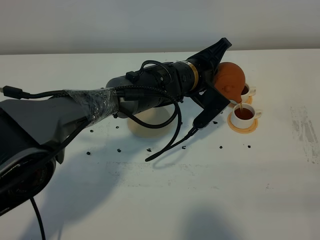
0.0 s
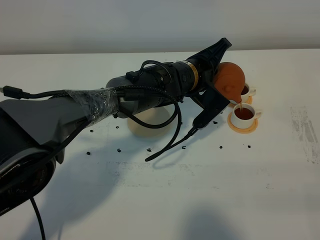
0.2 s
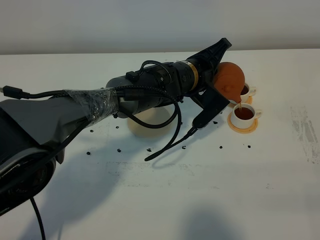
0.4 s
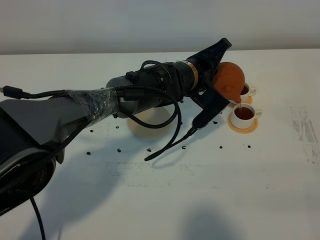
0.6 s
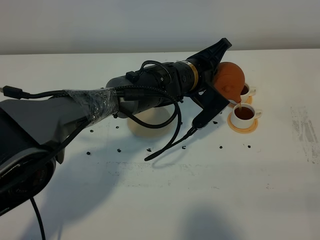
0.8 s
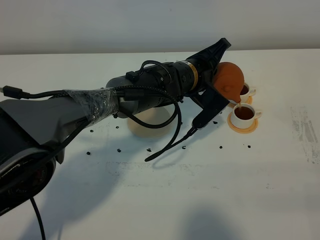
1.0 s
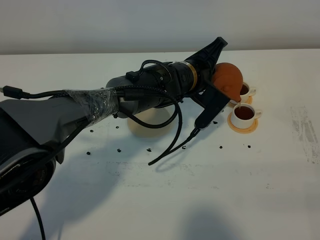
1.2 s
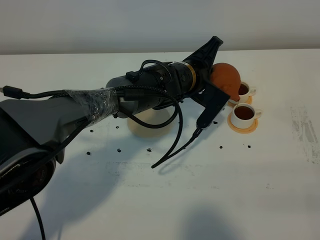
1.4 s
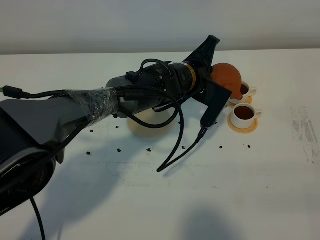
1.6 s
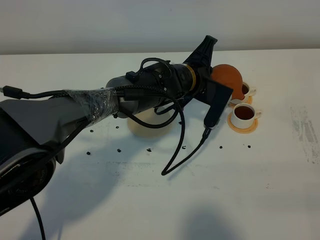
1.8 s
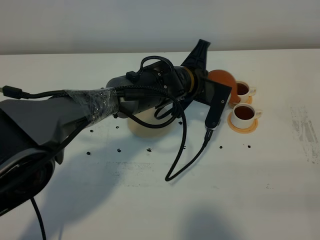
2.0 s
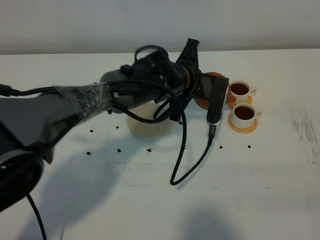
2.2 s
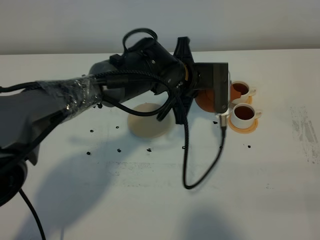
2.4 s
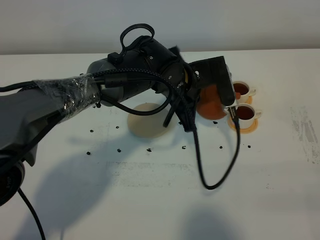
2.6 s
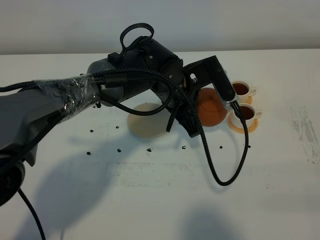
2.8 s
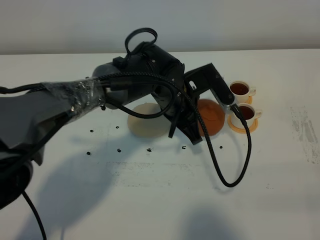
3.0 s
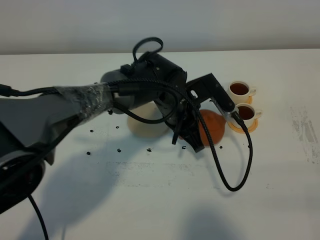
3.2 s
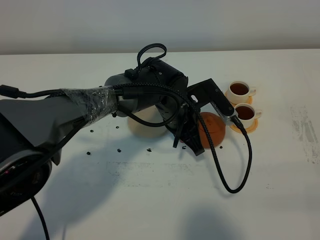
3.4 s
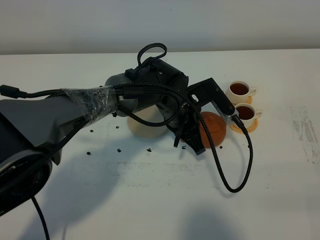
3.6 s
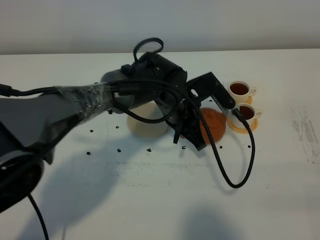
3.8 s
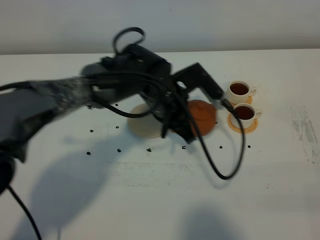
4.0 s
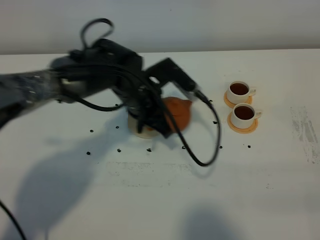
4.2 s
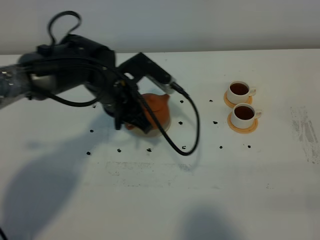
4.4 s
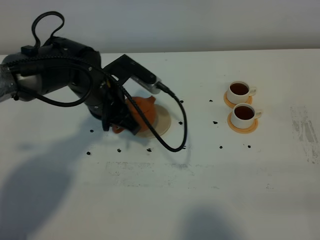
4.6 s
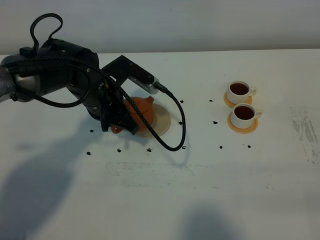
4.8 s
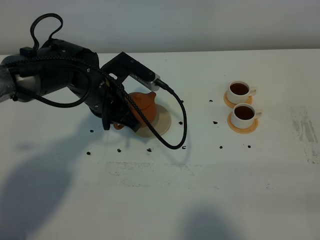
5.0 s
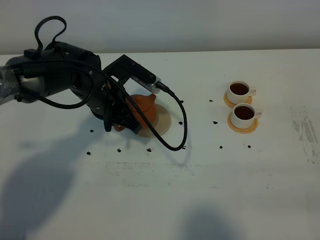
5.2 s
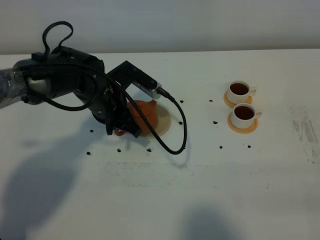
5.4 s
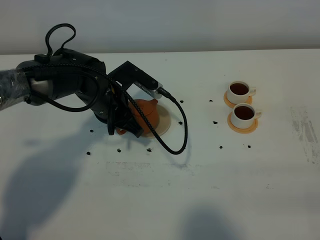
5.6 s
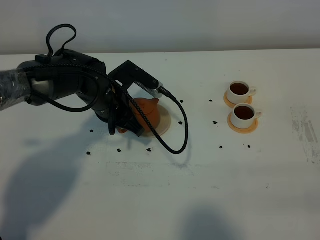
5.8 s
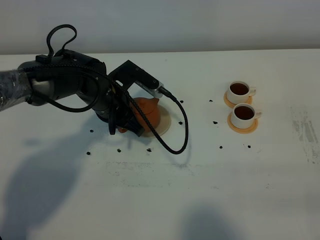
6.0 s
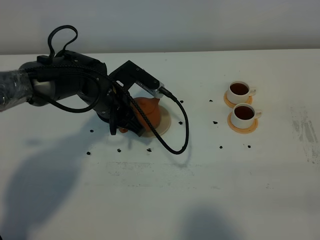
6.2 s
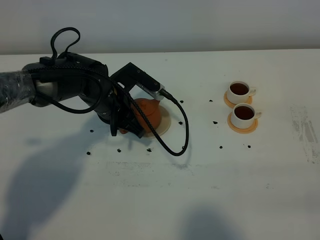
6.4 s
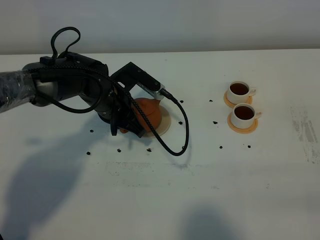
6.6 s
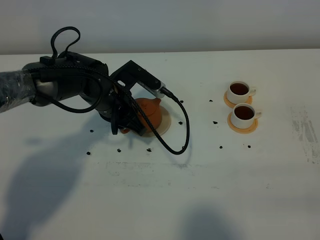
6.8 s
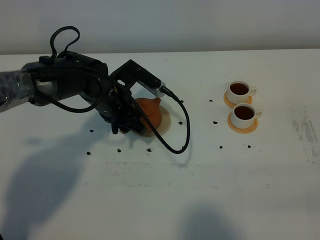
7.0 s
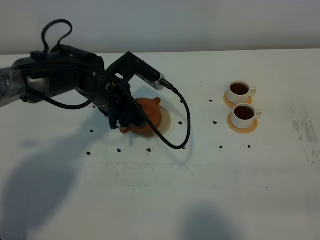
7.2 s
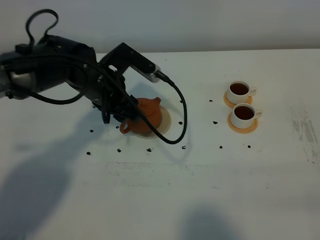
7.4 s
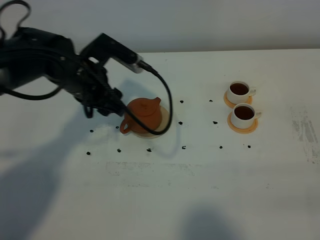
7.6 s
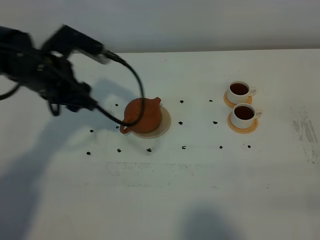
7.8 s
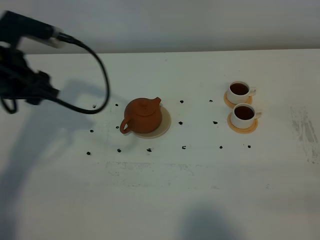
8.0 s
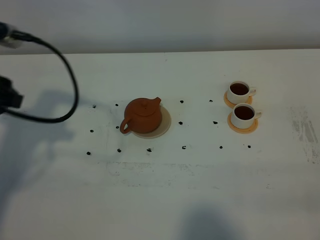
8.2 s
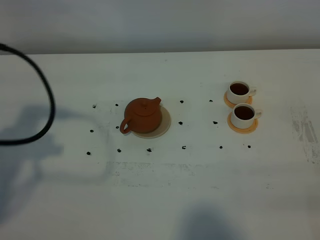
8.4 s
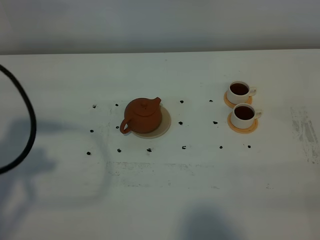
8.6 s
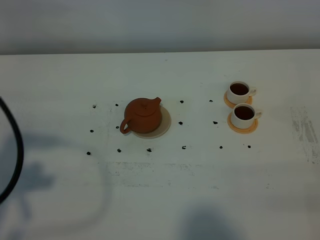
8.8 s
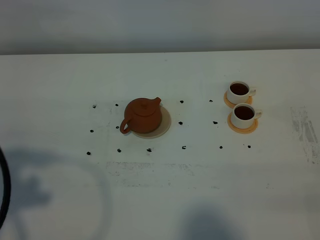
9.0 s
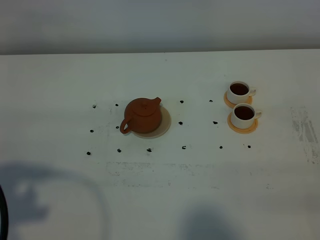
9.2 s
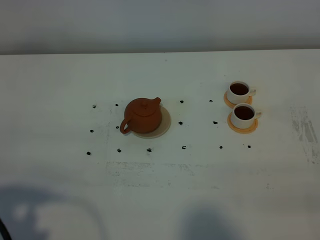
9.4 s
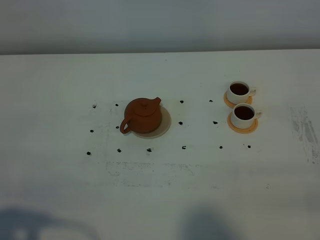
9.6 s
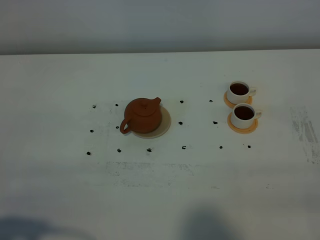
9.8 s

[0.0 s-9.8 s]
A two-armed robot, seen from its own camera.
Task of the whole recording: grasp the brown teapot and pour the tea into the two white teacups one by one, put the brown teapot back in its original place.
Step, 0.0 to 2.0 s: Pour tea into the teacup with the left gripper.
0.0 to 1.4 s: The grippers move only a little.
1.4 to 2.8 s: The left gripper moves approximately 5 cm.
2.8 to 4.2 s: The left gripper shifts approximately 5 cm to the left.
4.2 to 5.6 s: The left gripper shifts some 5 cm to the left.
5.6 to 7.0 s: The left gripper opens up.
7.0 to 8.4 s: The left gripper is displaced to the left, upward and backward by roughly 30 cm.
8.4 to 9.8 s: The left gripper is displaced backward by approximately 20 cm.

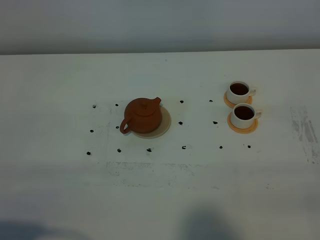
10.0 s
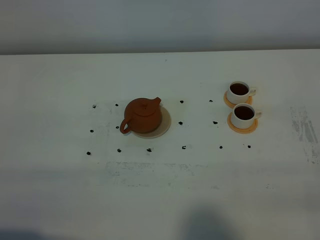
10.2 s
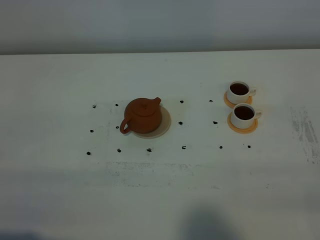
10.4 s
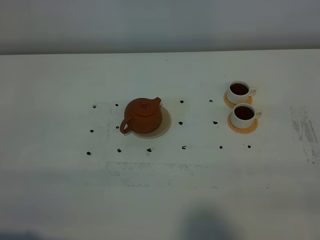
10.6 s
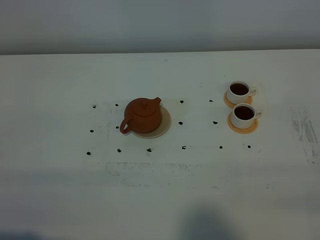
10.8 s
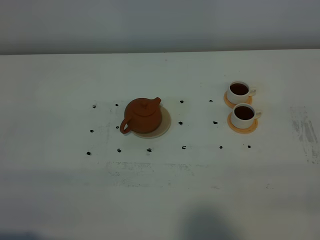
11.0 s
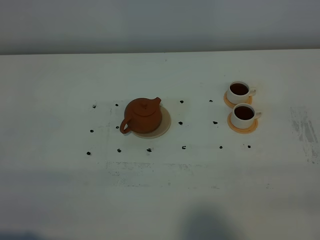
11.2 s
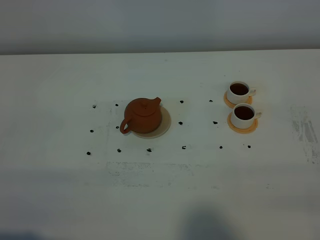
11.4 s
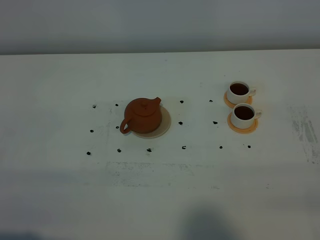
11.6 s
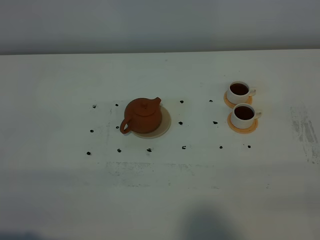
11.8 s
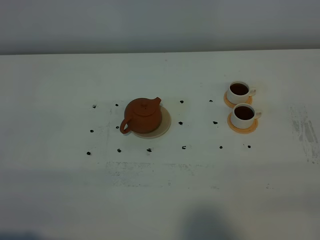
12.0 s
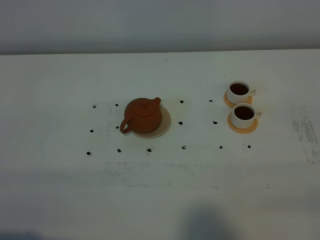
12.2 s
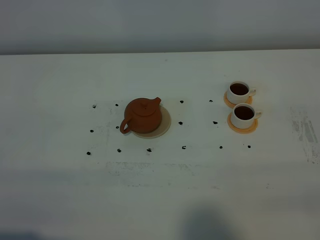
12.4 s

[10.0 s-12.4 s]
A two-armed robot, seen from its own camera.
Task of the whole recording: grasp the brown teapot and pour the tea into the two white teacups one by one, put the brown teapot back in its original place.
11.2 to 12.4 s: Both grippers stay about where they are.

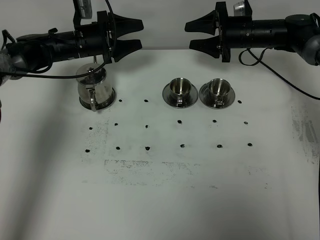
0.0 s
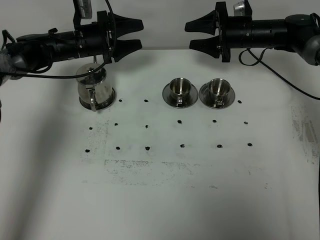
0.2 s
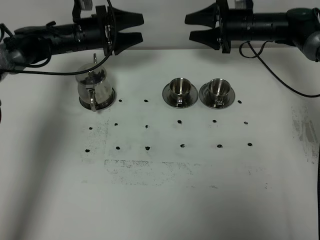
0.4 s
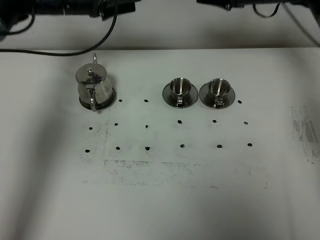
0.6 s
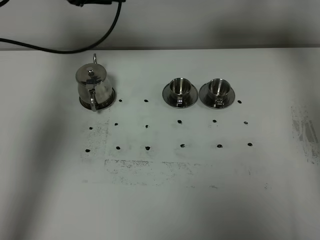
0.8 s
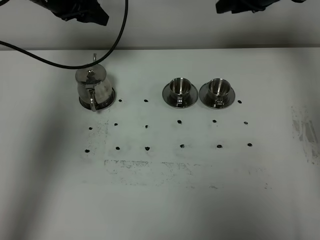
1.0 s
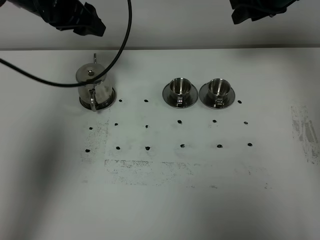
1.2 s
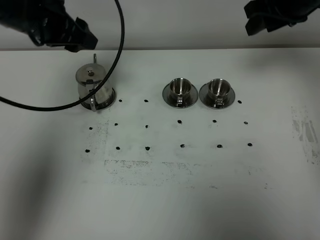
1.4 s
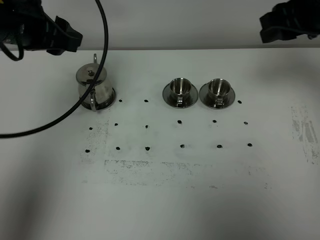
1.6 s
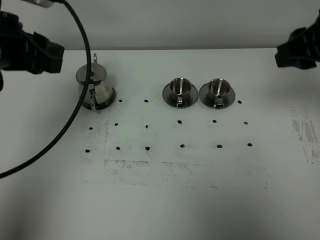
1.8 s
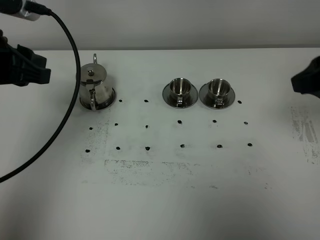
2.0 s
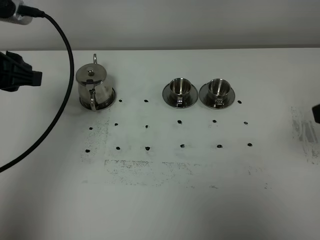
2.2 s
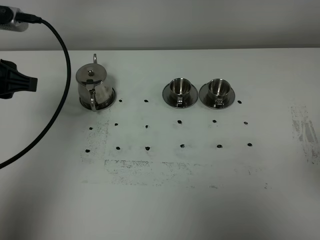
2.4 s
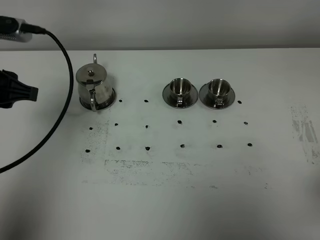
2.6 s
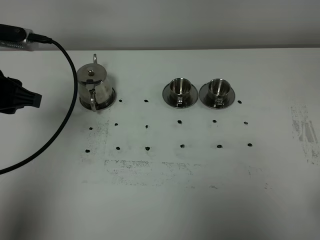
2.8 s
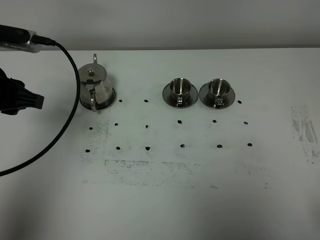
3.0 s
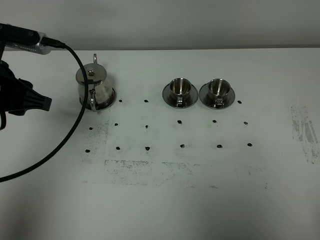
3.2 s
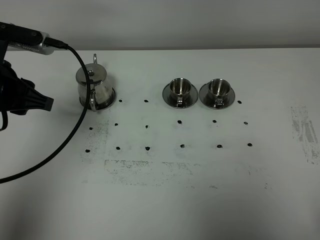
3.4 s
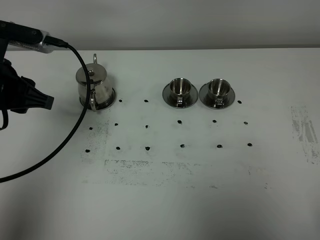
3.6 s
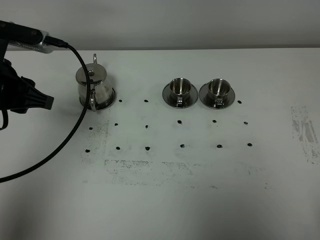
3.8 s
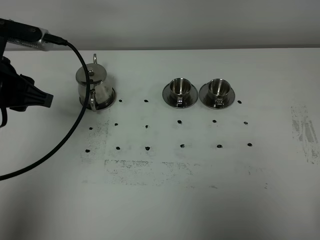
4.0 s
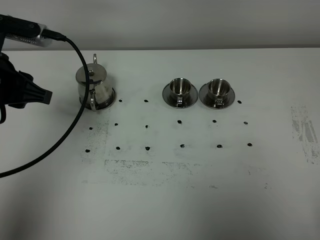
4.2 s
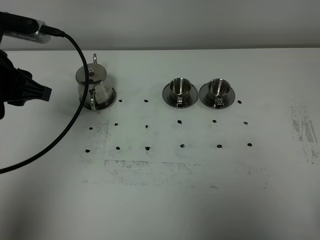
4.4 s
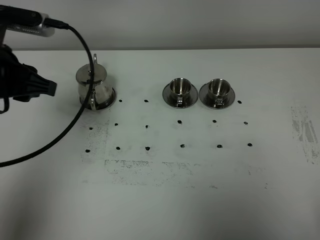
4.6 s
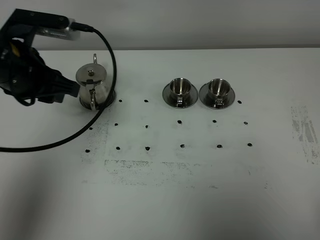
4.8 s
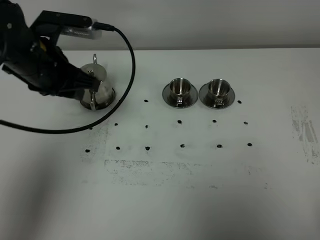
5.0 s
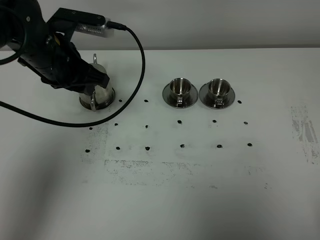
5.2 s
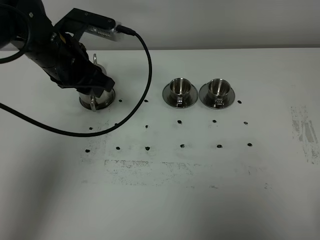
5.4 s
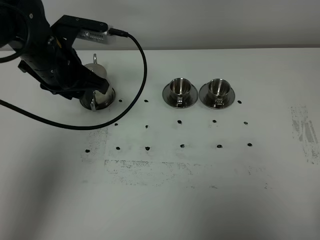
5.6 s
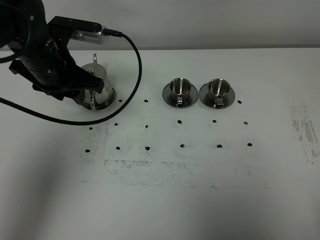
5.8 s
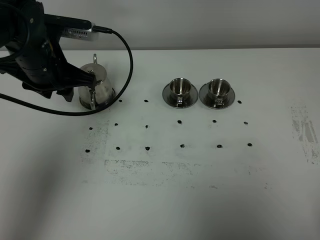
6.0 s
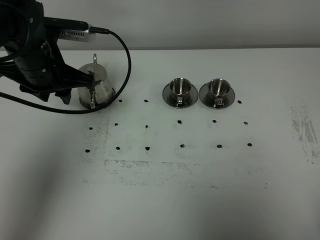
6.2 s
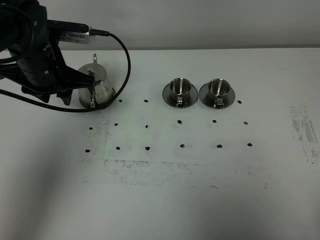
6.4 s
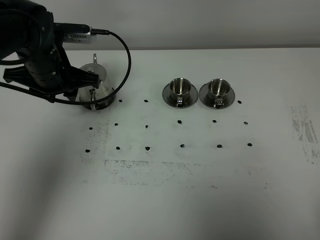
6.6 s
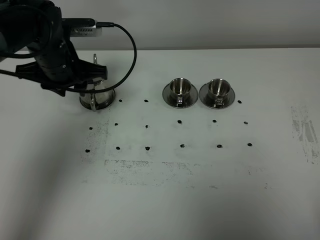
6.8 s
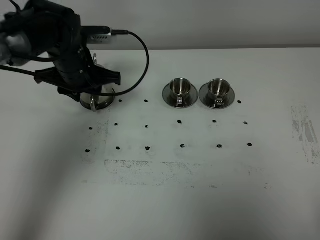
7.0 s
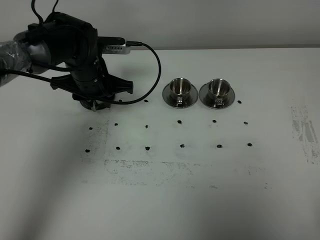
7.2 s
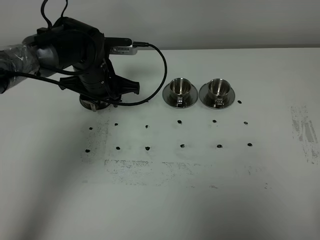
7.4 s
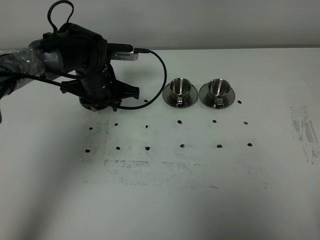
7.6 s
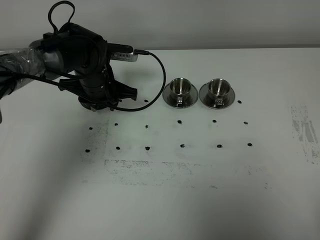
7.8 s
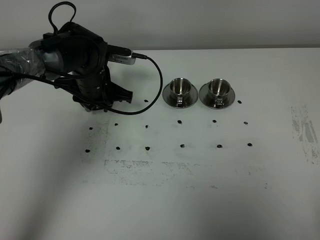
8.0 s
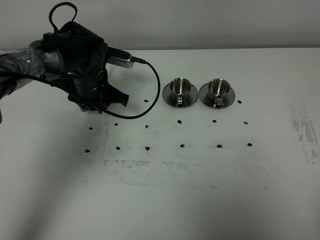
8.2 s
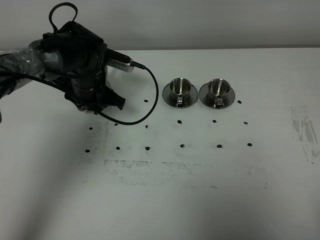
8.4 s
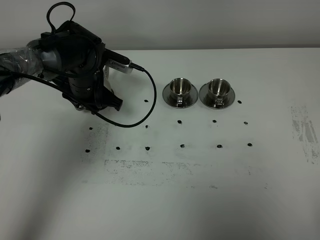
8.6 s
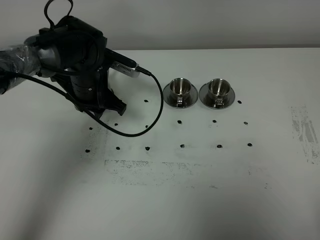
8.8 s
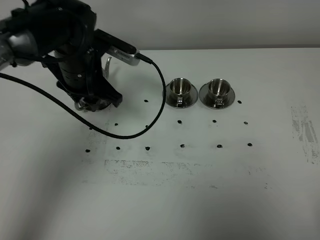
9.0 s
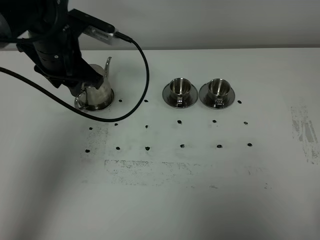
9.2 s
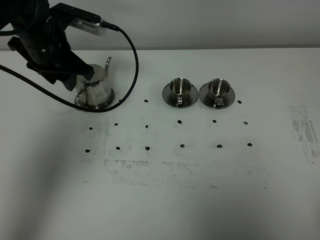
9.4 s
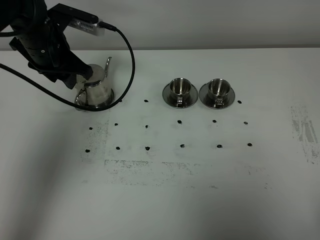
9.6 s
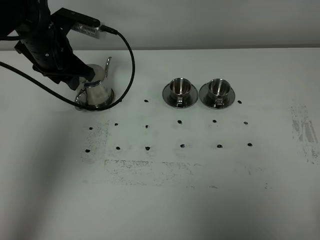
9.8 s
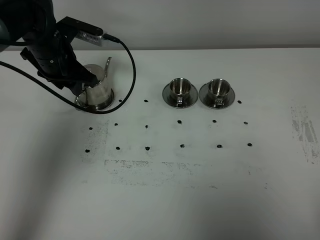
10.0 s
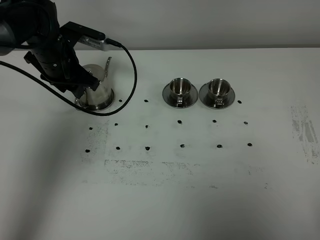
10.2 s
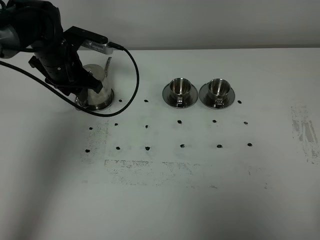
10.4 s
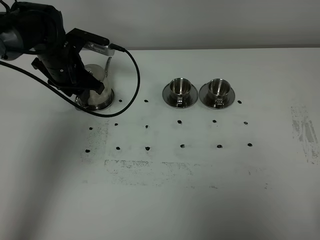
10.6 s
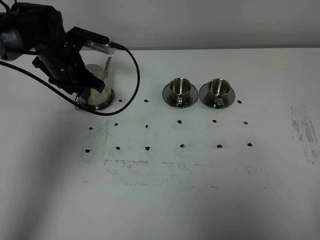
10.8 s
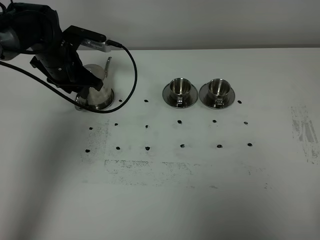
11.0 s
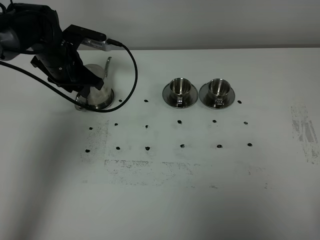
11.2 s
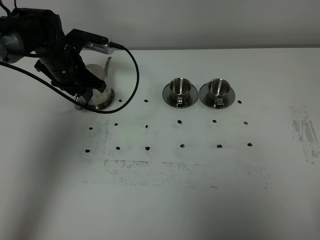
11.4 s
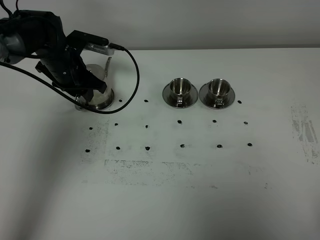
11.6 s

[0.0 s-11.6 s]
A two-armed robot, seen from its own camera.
Task of the whole recording: grasp the stainless steel teapot and pour the tea into the two stainless steel teacups one by one, put the stainless steel teapot back in its original place.
0.0 to 1.4 s: Both grippers travel together upward and backward, roughly 20 cm.
1.4 to 2.8 s: The right gripper shifts about 40 cm backward, while the left gripper heads backward and to the left, covering some 15 cm.
2.8 to 4.4 s: There are only small adjustments of the grippers.
4.4 to 5.8 s: The left gripper shifts roughly 10 cm forward and to the right.
5.8 to 7.2 s: The left gripper travels downward and forward by approximately 10 cm.
8.8 to 10.2 s: The left gripper heads to the left, covering roughly 5 cm, and moves some 10 cm upward and comes back.
10.2 to 11.6 s: The grippers make only small movements.
